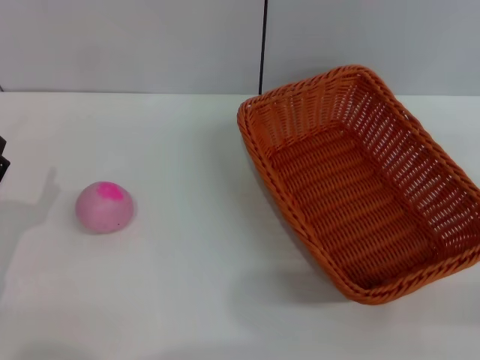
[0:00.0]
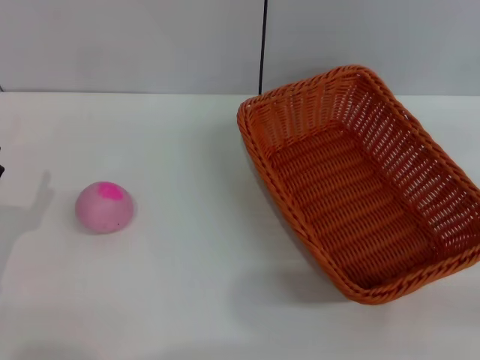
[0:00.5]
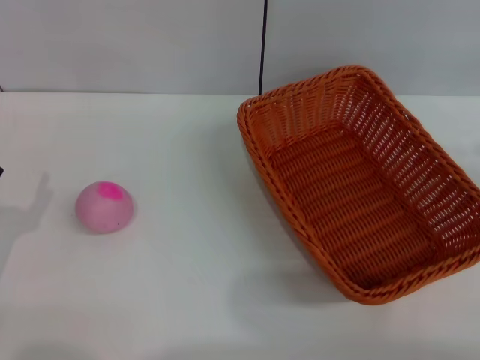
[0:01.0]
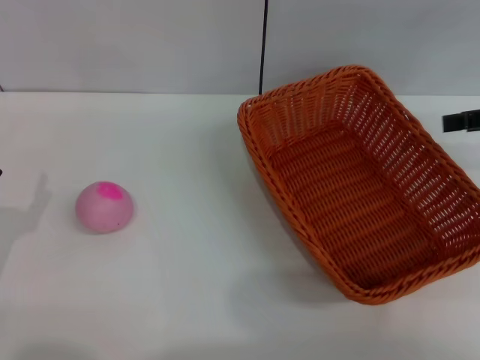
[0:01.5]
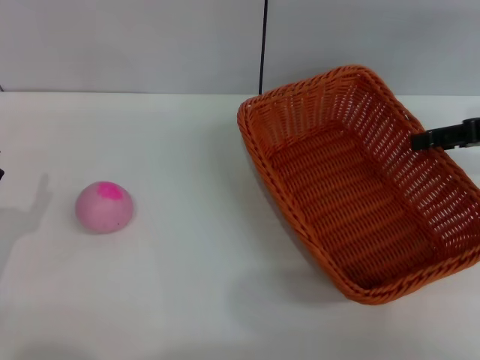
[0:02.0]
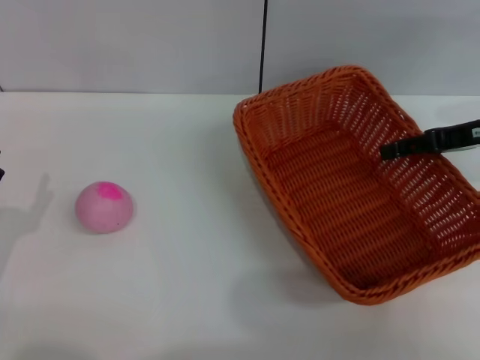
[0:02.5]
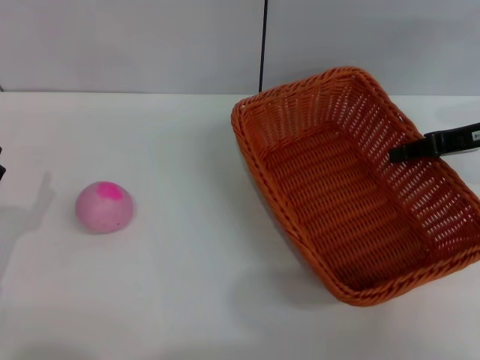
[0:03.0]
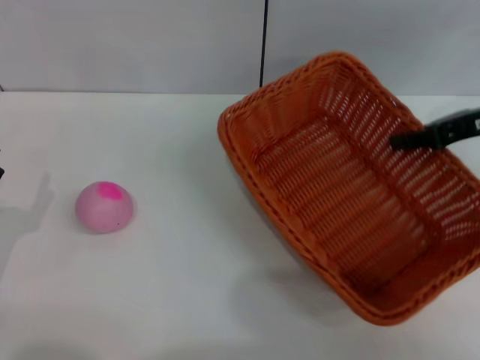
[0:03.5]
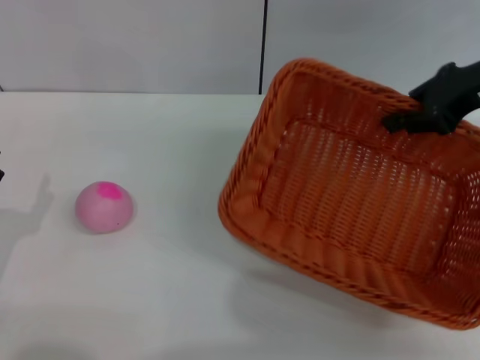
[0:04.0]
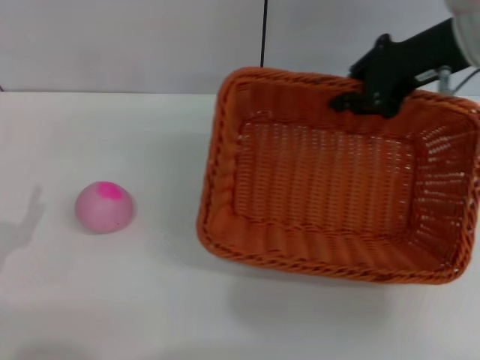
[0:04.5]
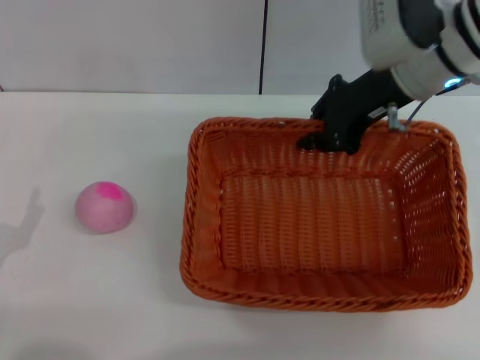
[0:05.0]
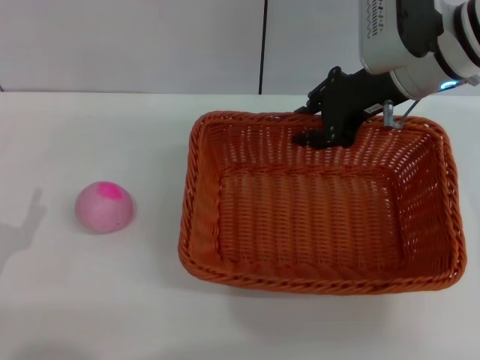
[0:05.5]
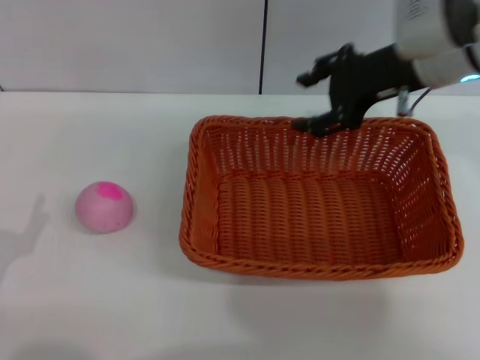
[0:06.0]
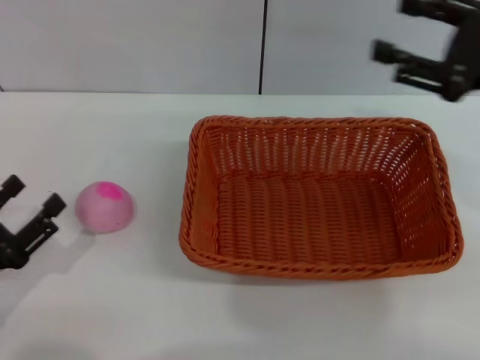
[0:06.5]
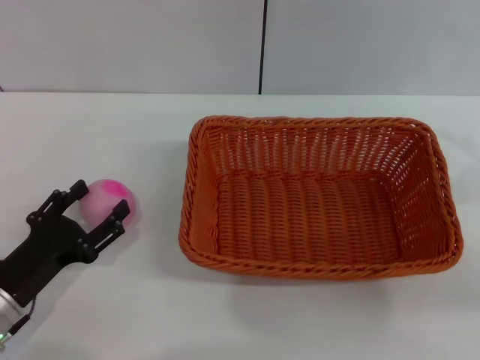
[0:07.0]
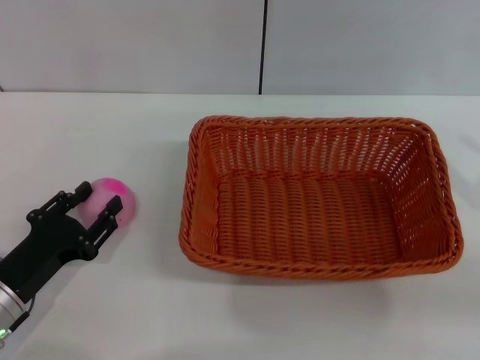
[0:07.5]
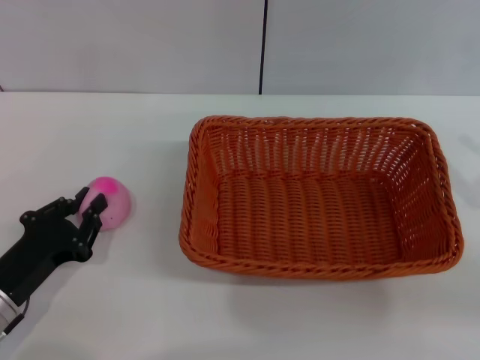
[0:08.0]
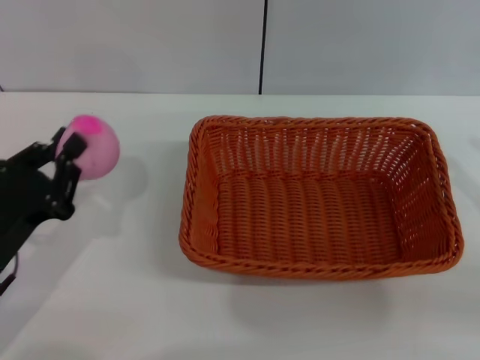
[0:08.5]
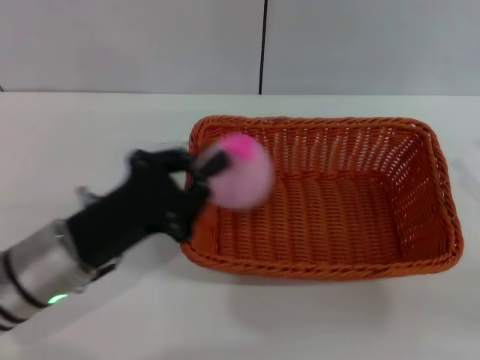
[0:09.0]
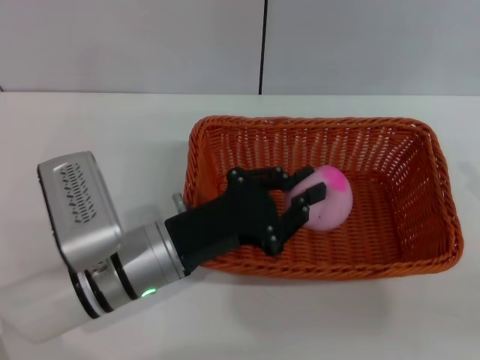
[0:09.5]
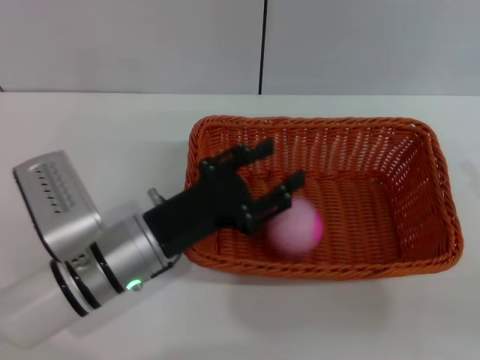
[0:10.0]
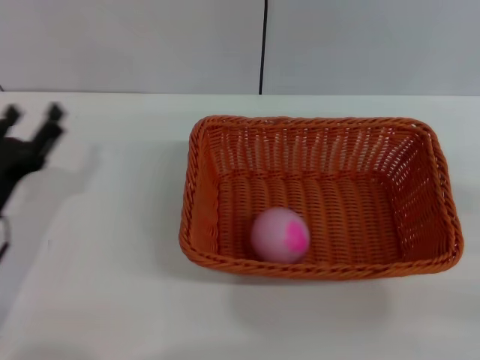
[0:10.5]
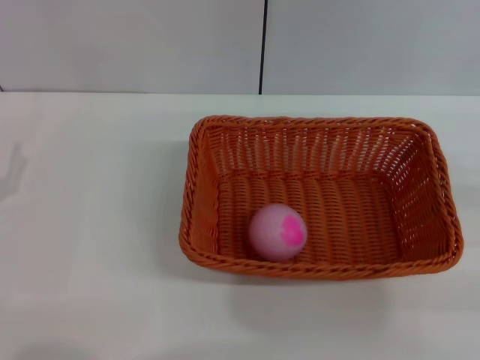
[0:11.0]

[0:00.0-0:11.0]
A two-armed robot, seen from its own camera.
Step, 0:00.0 to 0:03.5: Pick up the light basket with the right gripper.
Step, 0:04.0 to 0:06.0: Place the light basket in the center of view with the right gripper.
Step, 0:06.5 to 0:08.5: Pick up the peach with the left gripper.
Step, 0:09.0 to 0:10.0: Place the peach into the basket with the left gripper.
0:00.0 to 0:02.0: The right gripper heads forward and upward, covering some 20 cm.
0:02.0 to 0:03.5: The right gripper closes its fingers.
0:03.5 to 0:05.5: The right gripper heads to the left, covering about 15 cm.
0:05.5 to 0:07.5: The left gripper ends up approximately 5 cm from where it was. The right gripper travels to the right and backward by roughly 25 cm, and opens its fingers.
0:07.5 to 0:09.0: The left gripper shifts some 10 cm to the right and upward, and closes.
0:09.0 to 0:11.0: The right gripper moves to the right, about 5 cm. The left gripper is displaced to the left by roughly 15 cm, and opens its fingers.
